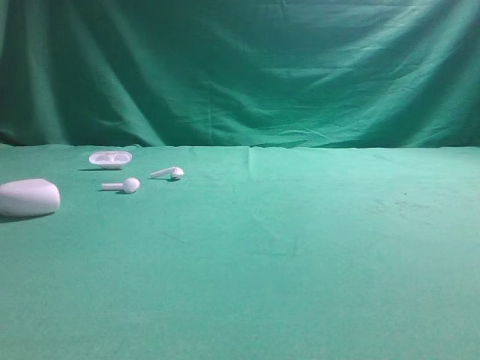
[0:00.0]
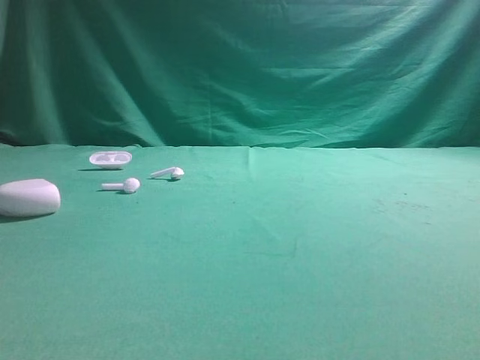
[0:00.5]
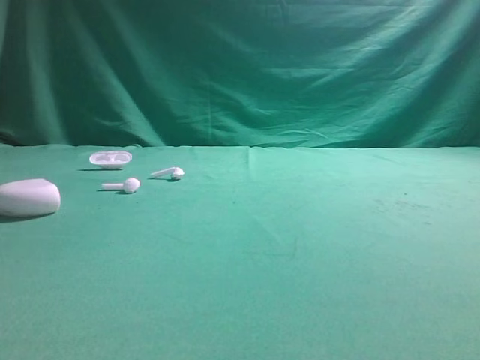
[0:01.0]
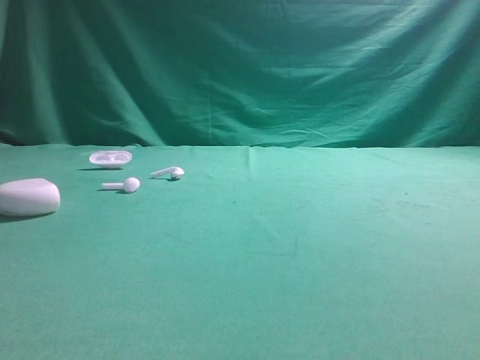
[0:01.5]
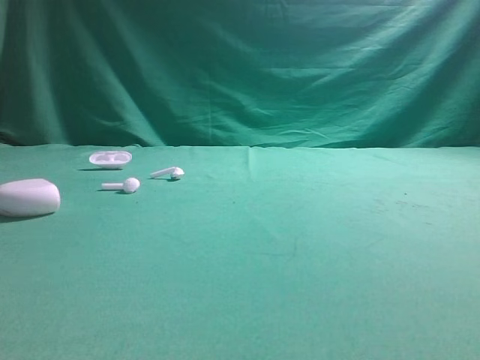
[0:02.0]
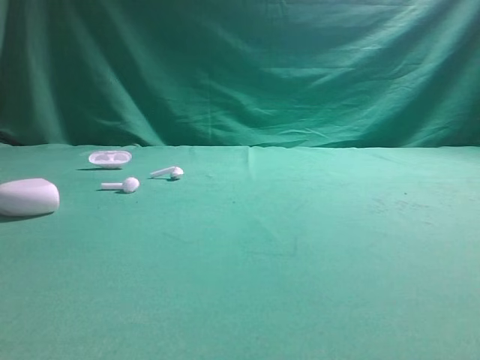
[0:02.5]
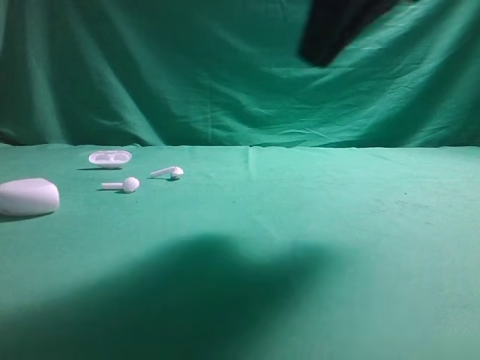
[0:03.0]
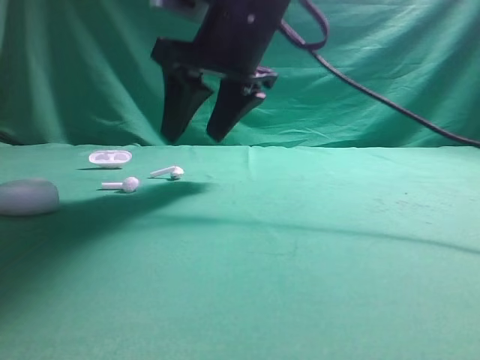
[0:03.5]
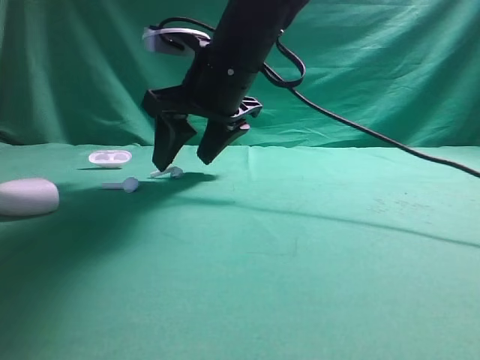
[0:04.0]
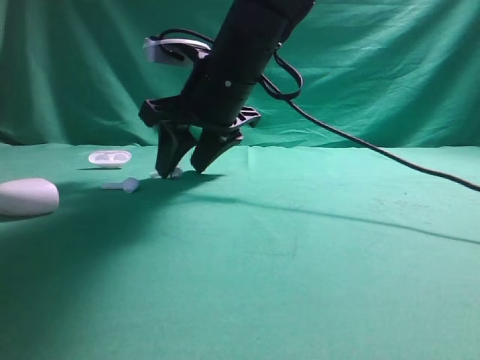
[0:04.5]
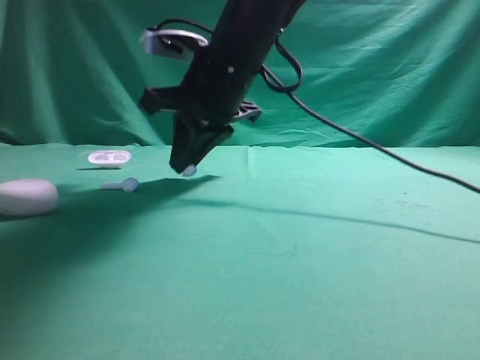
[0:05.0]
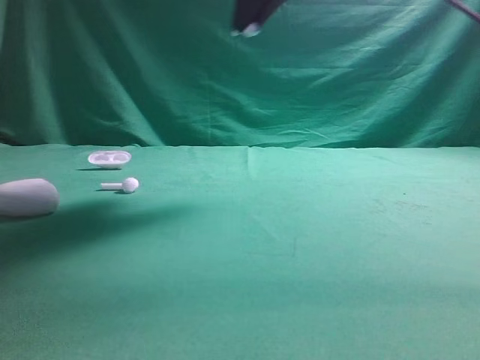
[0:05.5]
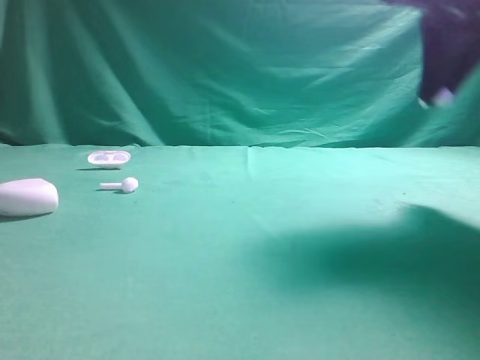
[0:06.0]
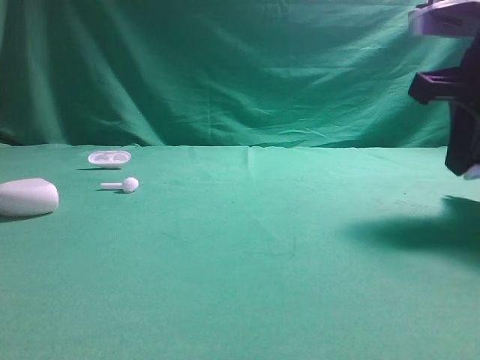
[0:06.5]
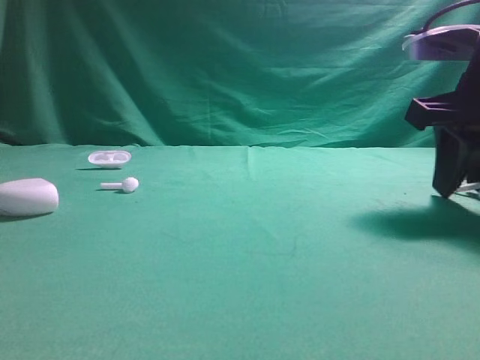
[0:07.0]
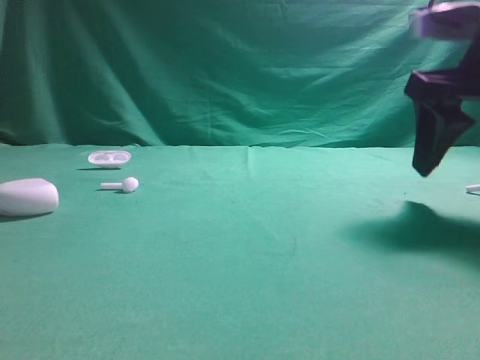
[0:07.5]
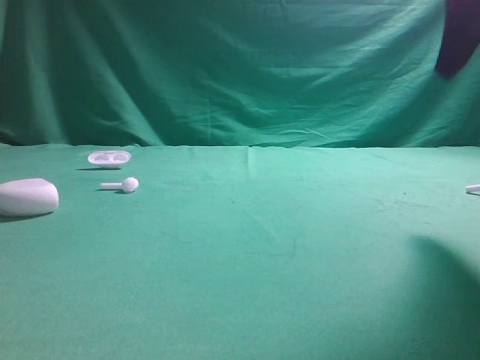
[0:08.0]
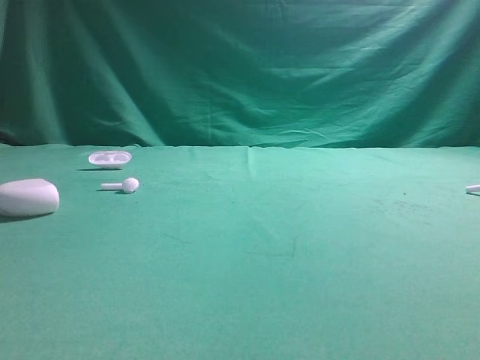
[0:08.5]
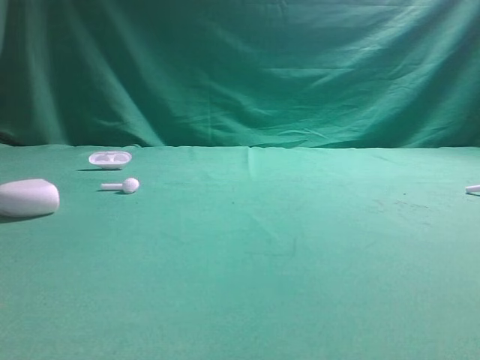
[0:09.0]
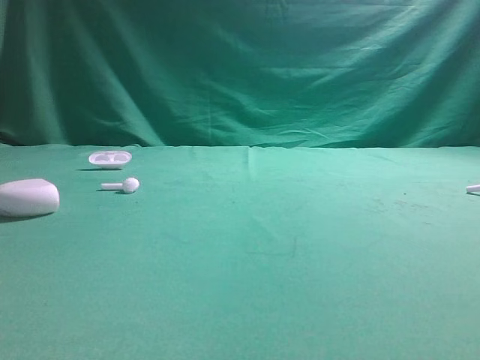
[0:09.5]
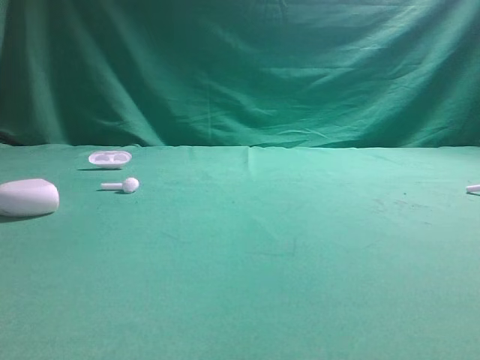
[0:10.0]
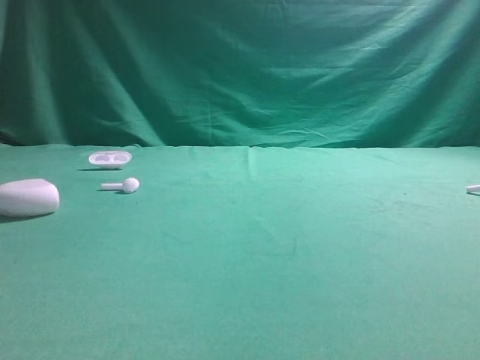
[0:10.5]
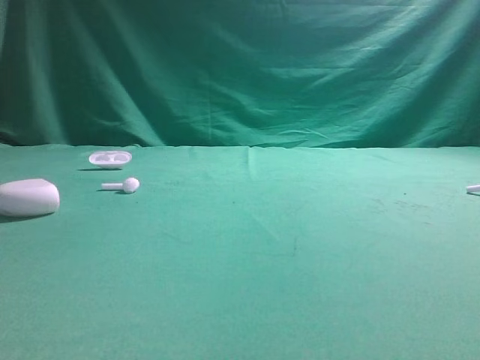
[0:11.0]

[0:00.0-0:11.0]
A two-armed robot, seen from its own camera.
Step, 0:00.0 to 0:05.0: Grasp the Bluetooth earbud.
Step, 0:05.5 to 0:07.5: Place bluetooth earbud on the right side of the table.

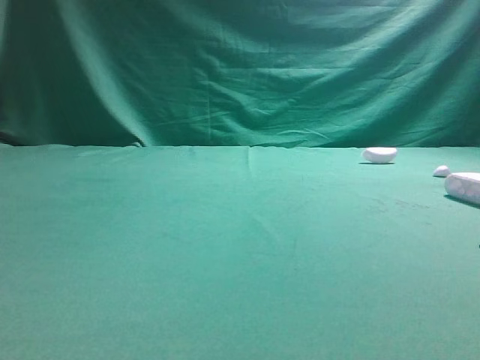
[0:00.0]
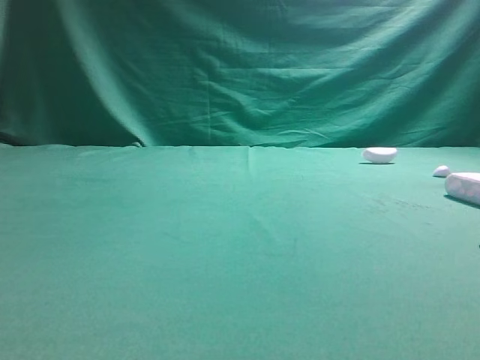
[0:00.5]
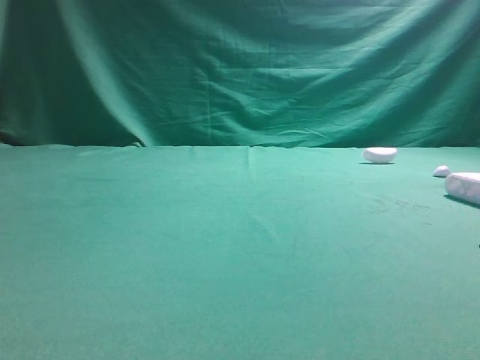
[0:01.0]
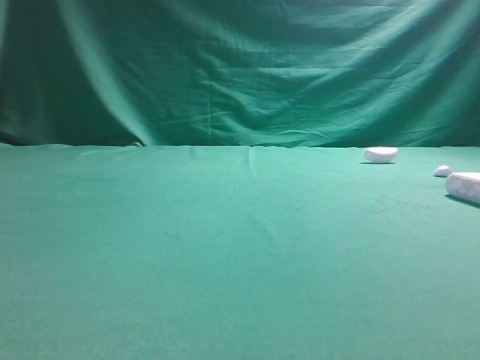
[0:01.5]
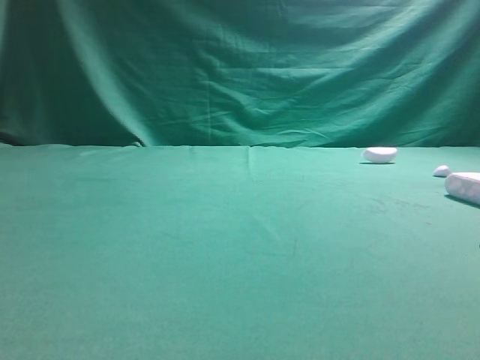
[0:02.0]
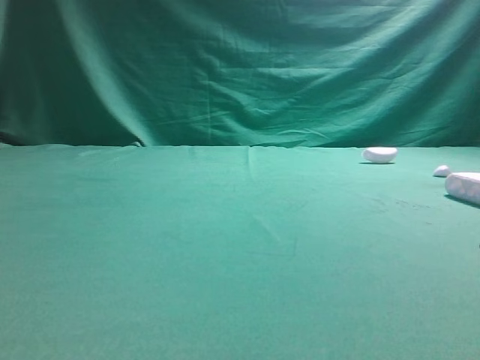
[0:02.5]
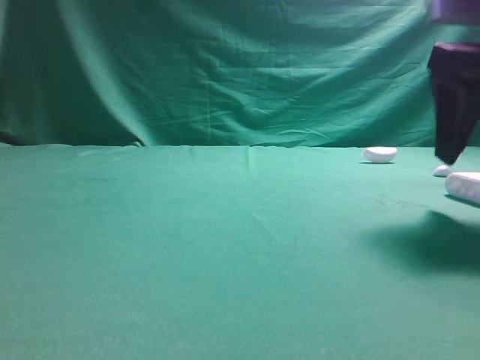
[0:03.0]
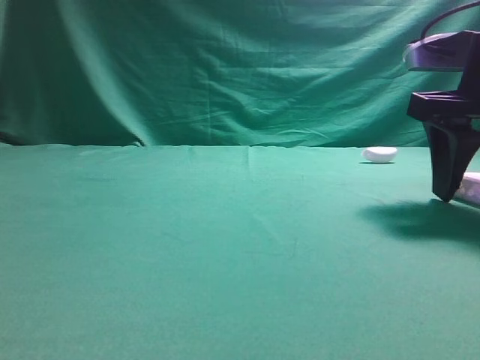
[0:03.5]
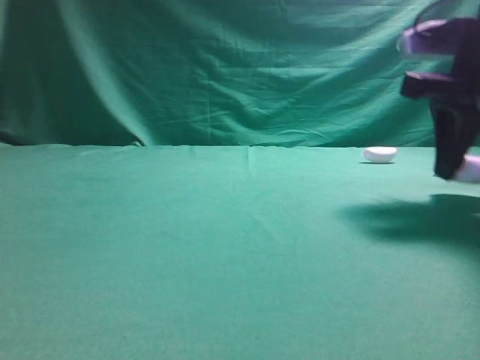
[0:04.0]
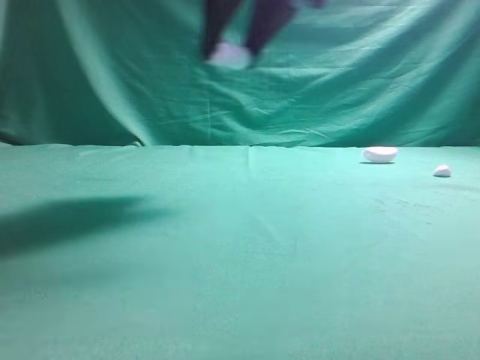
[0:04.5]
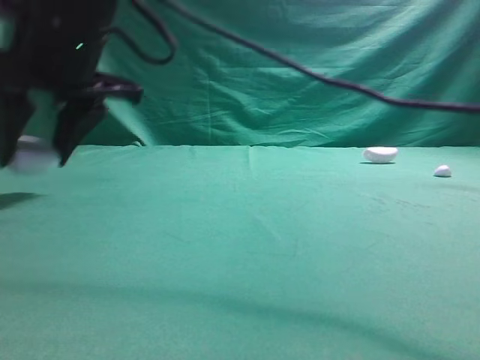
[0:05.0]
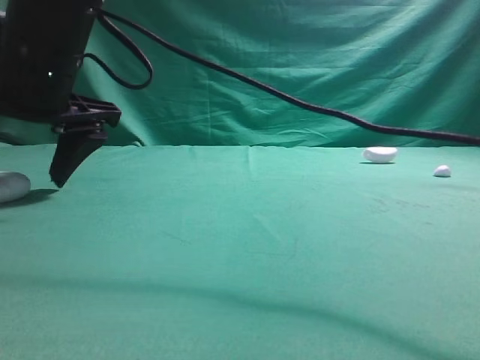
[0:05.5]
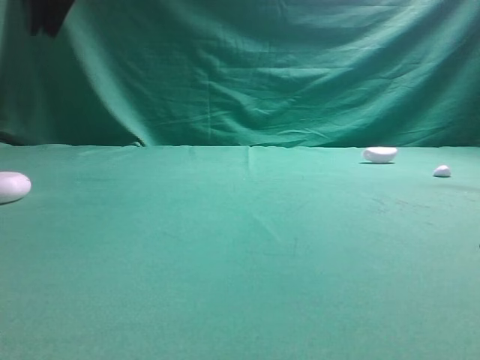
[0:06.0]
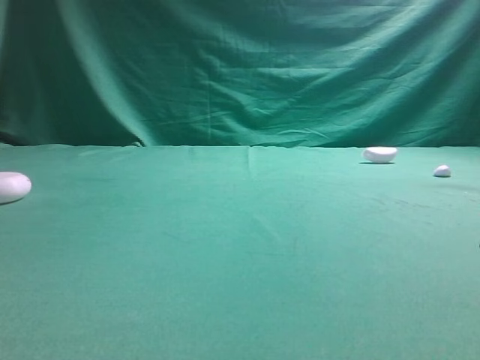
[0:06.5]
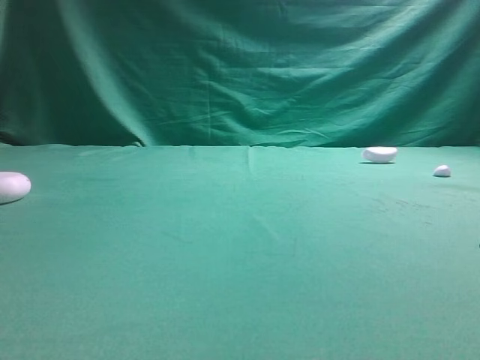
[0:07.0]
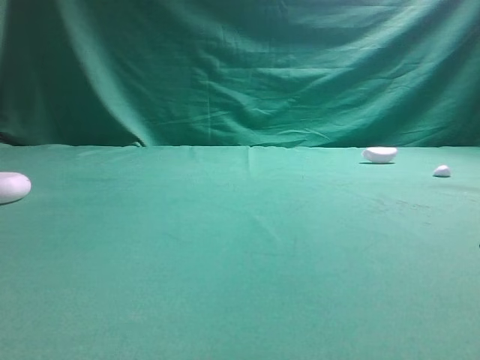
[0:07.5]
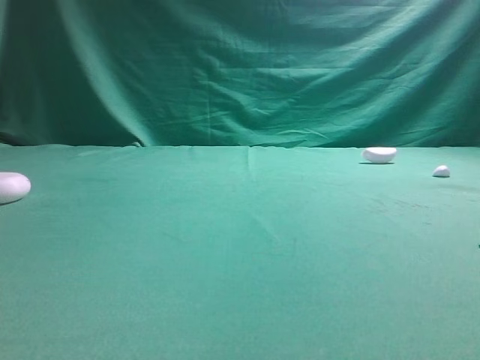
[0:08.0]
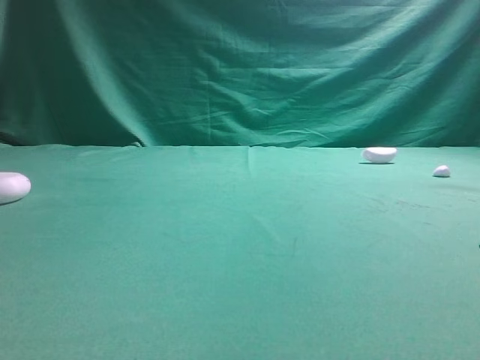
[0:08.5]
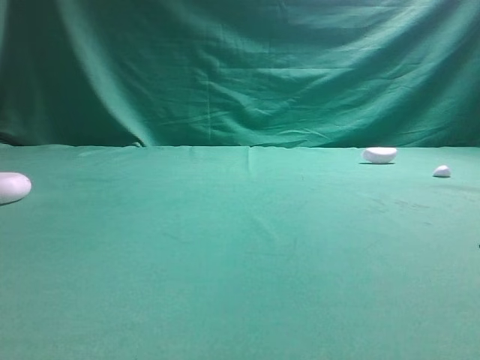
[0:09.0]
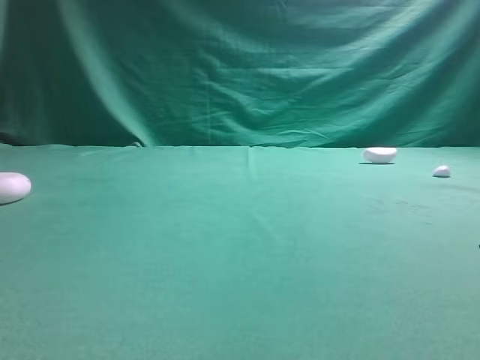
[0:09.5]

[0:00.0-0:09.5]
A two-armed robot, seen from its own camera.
Step, 0:00.0 to 0:04.0: Grasp the Bluetooth earphone case.
Step, 0:04.5 to 0:05.5: Place bluetooth earphone case on the left side of the table.

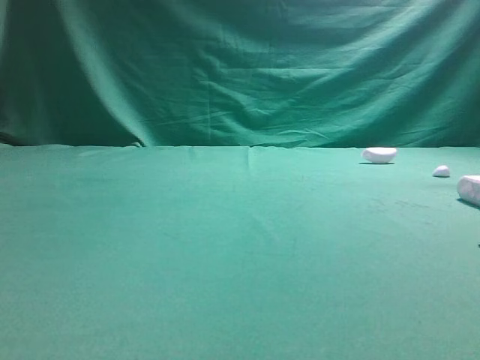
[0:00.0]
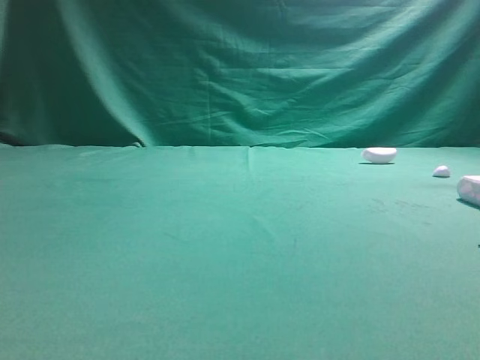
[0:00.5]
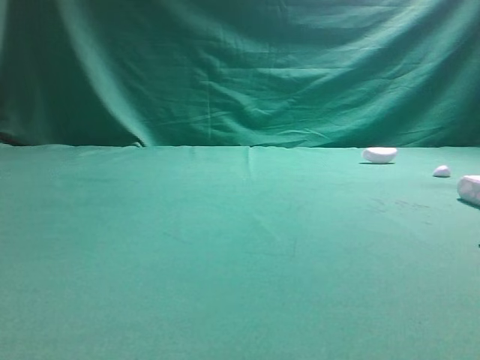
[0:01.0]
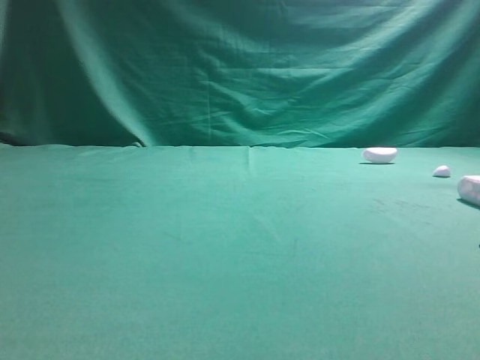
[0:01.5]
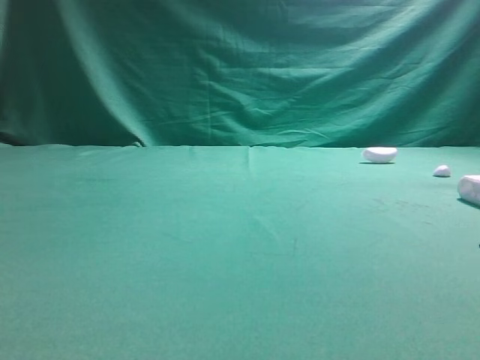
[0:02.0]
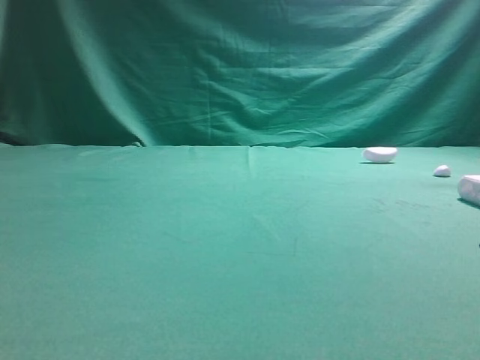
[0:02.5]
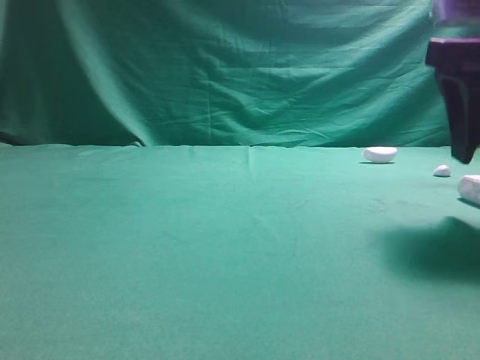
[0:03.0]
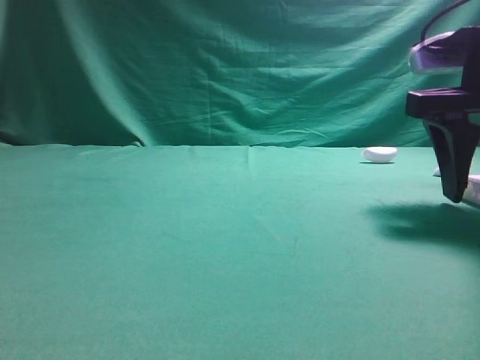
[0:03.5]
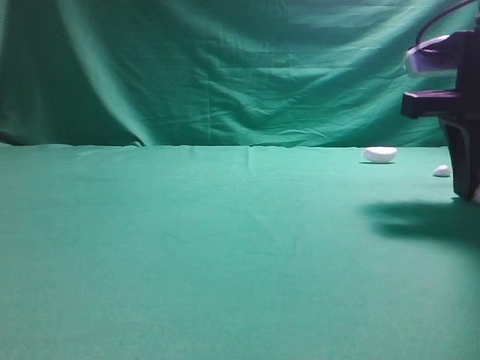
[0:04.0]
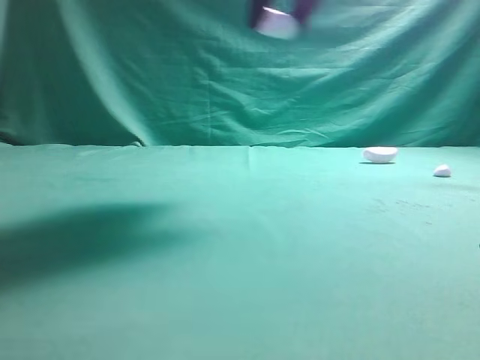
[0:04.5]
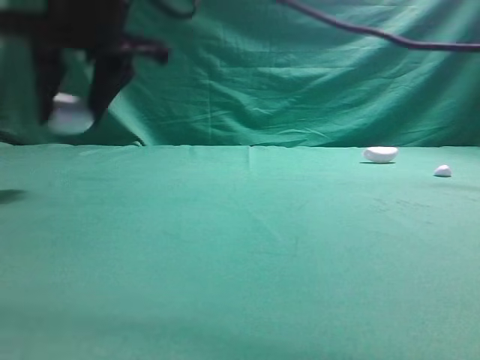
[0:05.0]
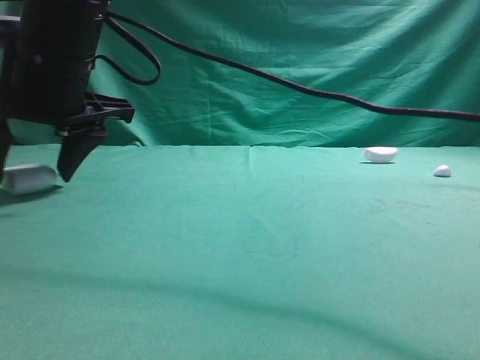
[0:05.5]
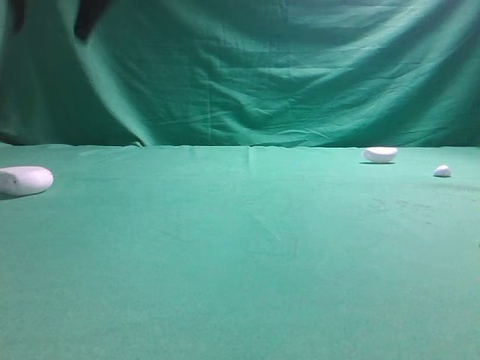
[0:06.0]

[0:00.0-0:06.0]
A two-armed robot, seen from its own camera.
Step, 0:00.0 to 0:04.0: Grasp the Bluetooth earphone case.
Step, 0:04.5 to 0:05.5: Place bluetooth earphone case on the left side of the table.
